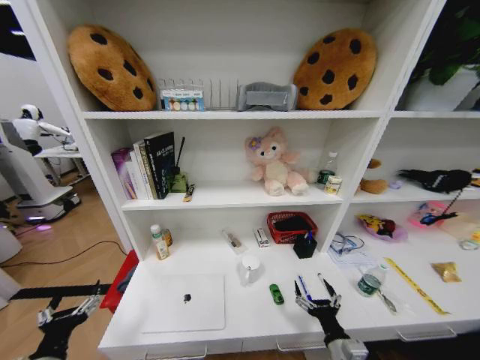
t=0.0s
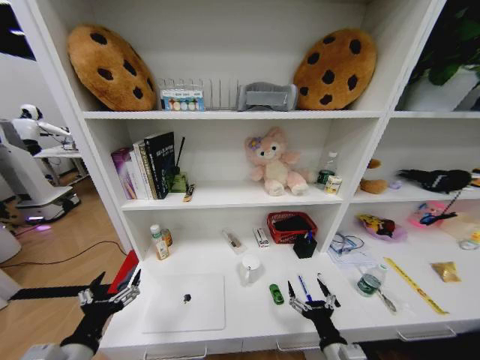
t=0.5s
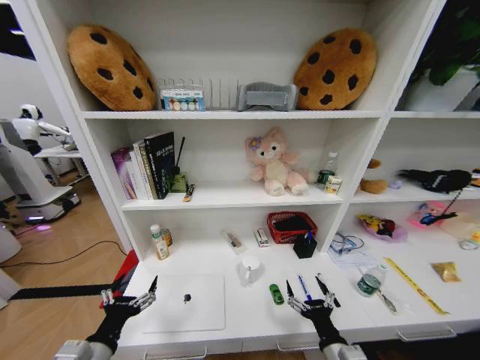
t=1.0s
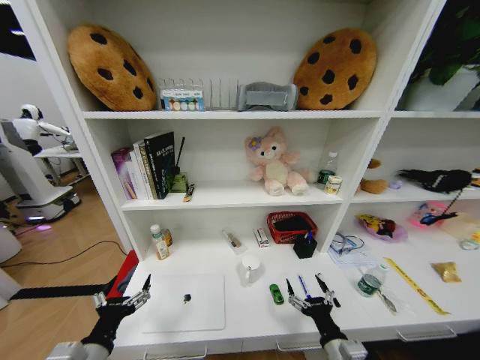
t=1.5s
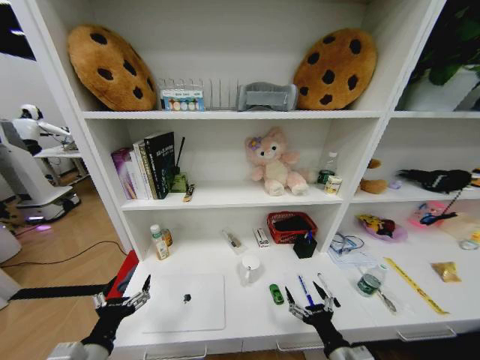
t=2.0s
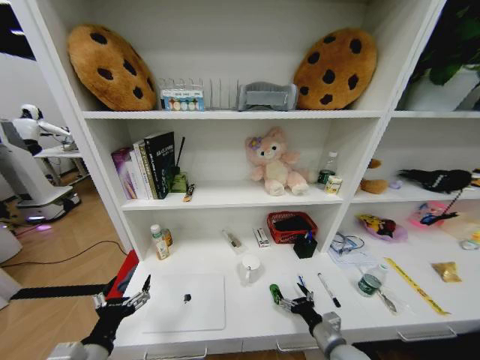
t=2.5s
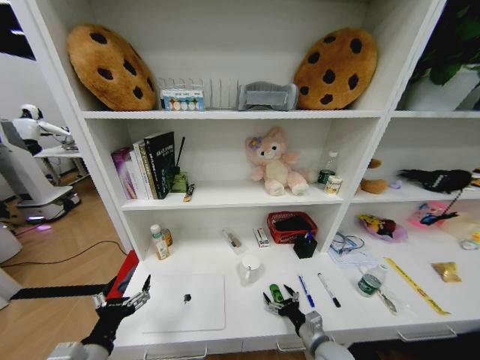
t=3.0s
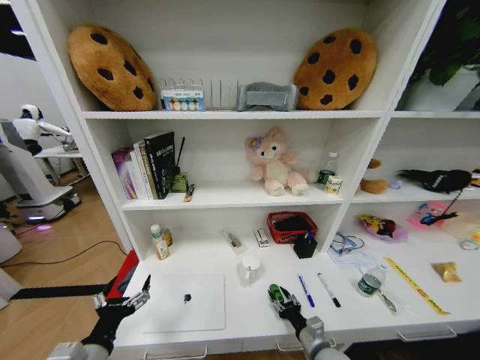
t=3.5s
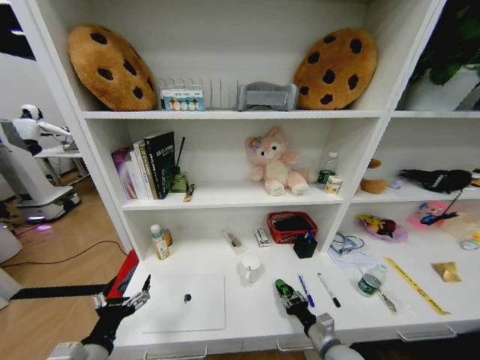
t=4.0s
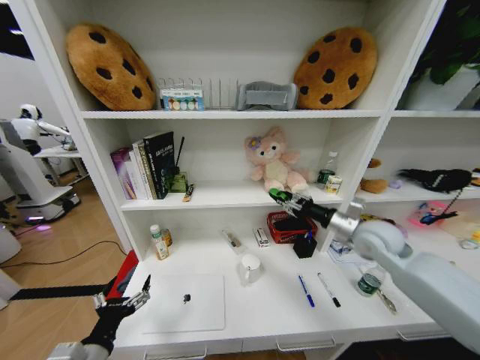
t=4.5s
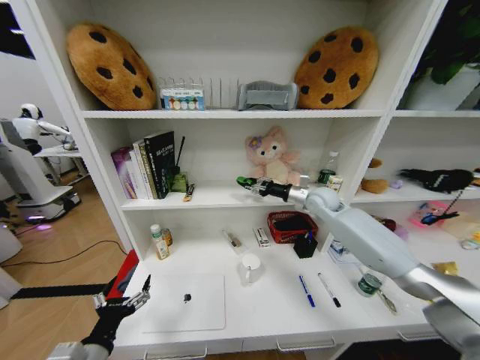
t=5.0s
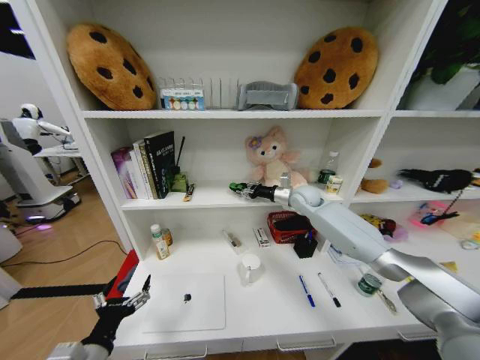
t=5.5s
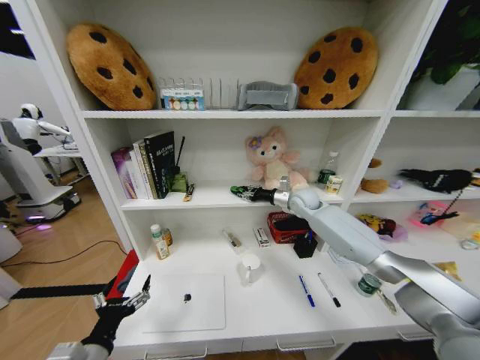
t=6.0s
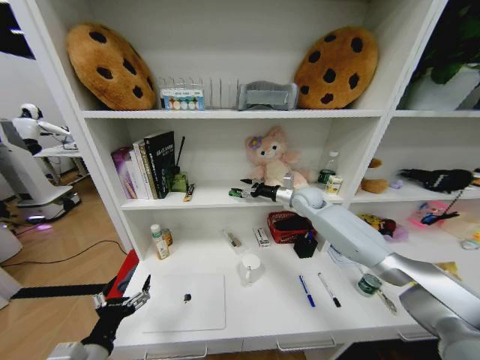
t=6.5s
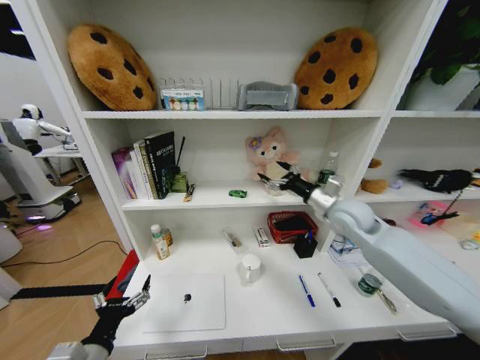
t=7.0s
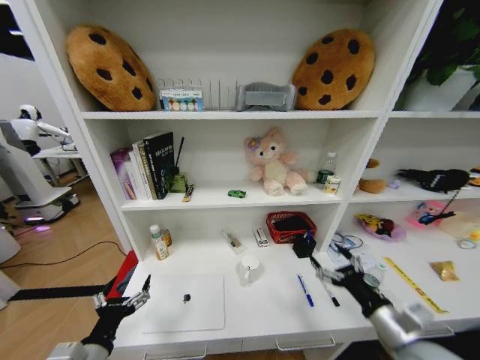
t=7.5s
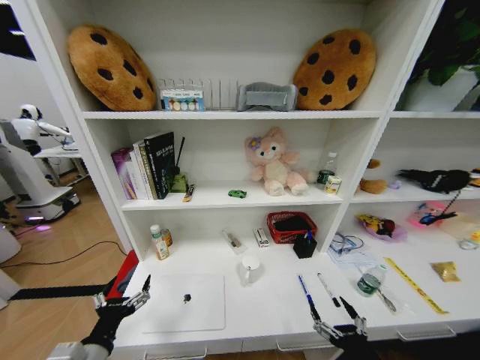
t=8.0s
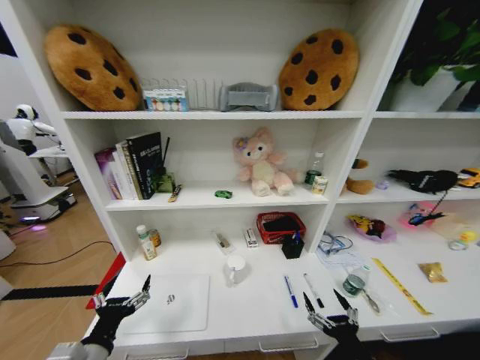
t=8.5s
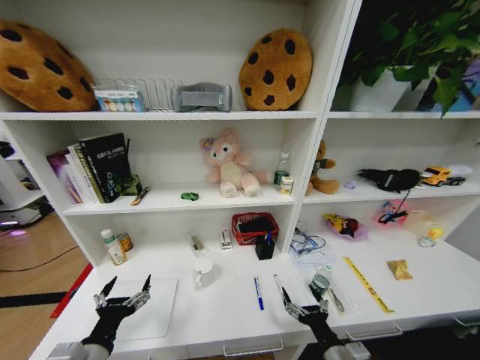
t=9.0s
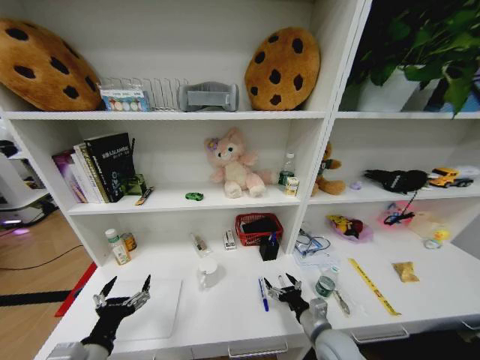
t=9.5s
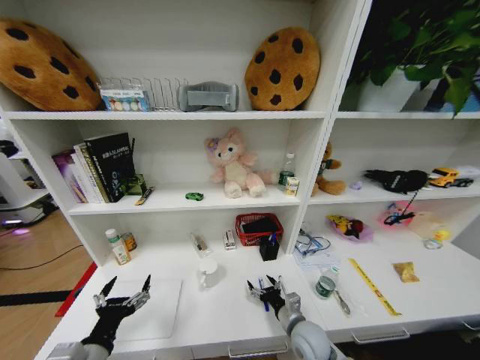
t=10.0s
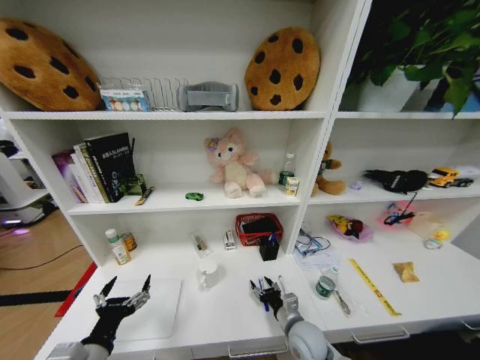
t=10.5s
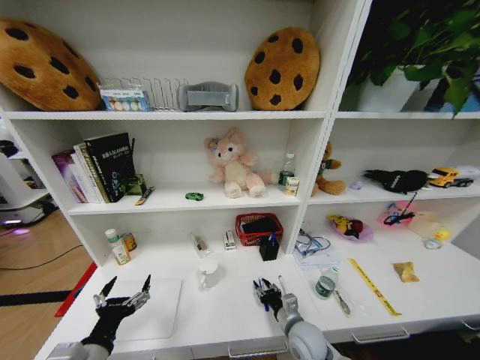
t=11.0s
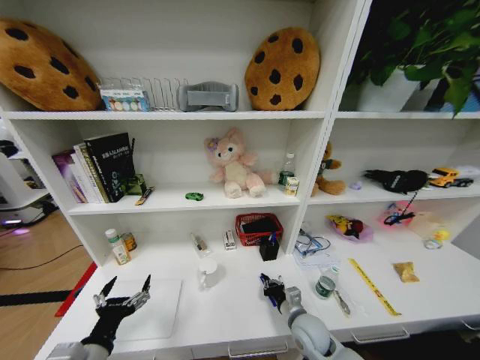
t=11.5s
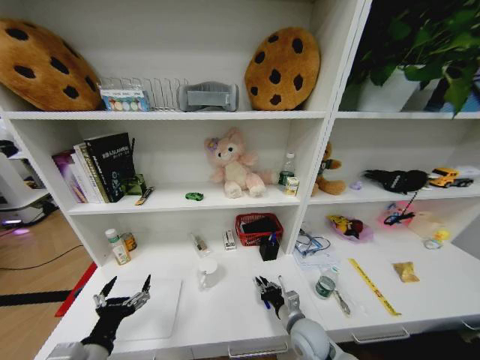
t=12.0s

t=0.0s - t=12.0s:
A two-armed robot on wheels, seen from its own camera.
Task of the whole recording: Organize the objects on the table.
t=0.0s - t=2.0s: The left gripper moves to the right, about 5 cm.
t=2.0s - t=4.0s: The right gripper shifts some 10 cm forward and downward, and closes.
t=4.0s - t=6.0s: The right gripper goes about 50 cm forward and upward.
t=6.0s - t=8.0s: The right gripper moves backward, about 50 cm, and opens up.
t=8.0s - t=10.0s: The right gripper goes about 20 cm forward and to the left.
t=10.0s - t=12.0s: The right gripper closes up.

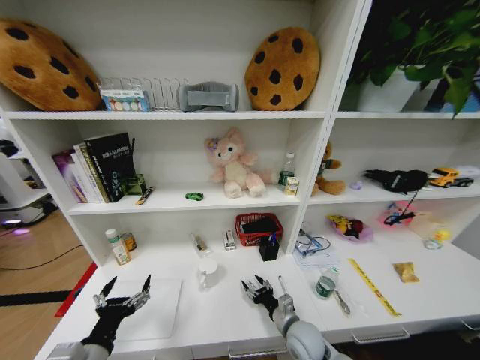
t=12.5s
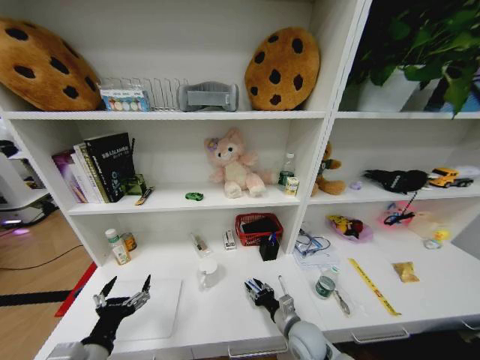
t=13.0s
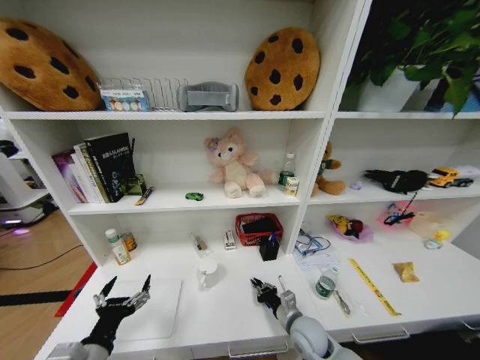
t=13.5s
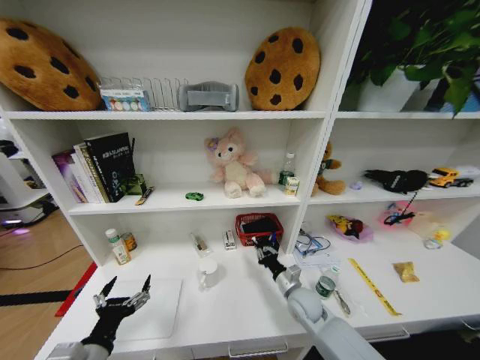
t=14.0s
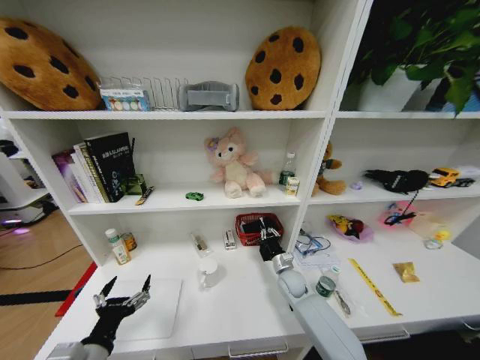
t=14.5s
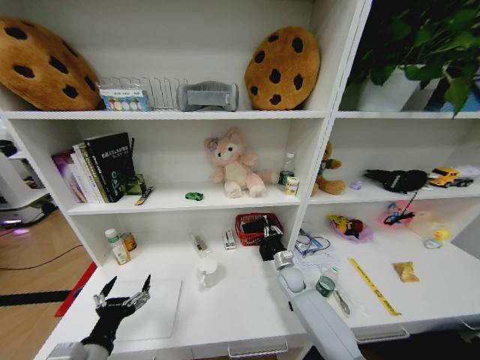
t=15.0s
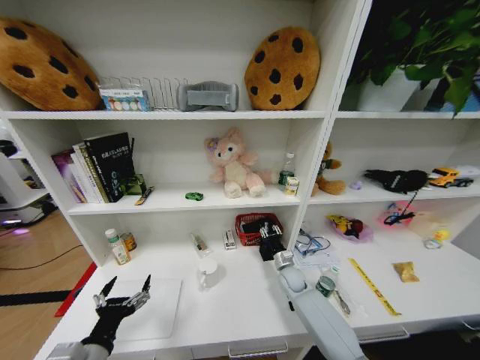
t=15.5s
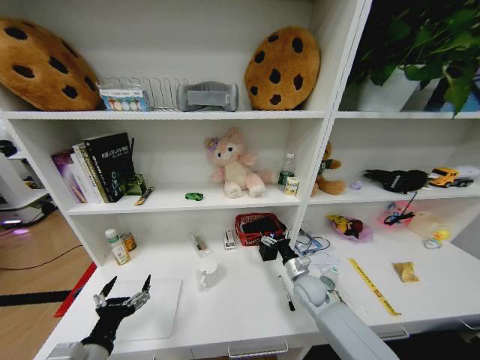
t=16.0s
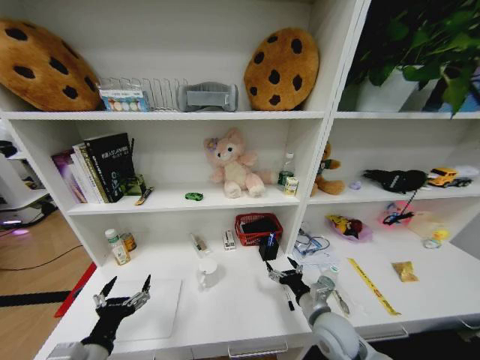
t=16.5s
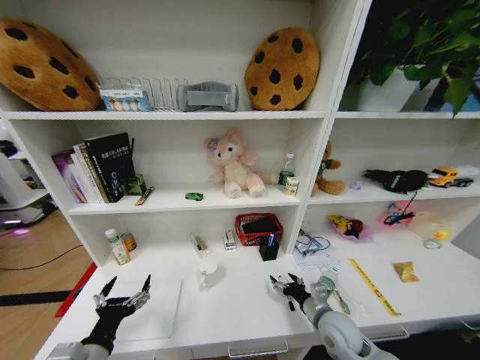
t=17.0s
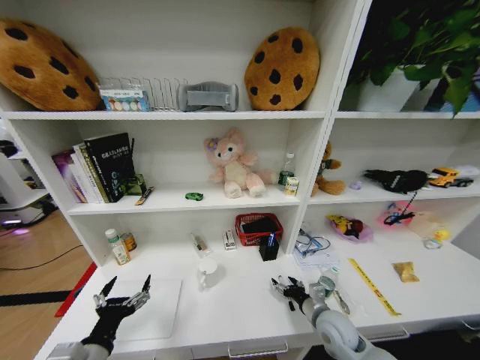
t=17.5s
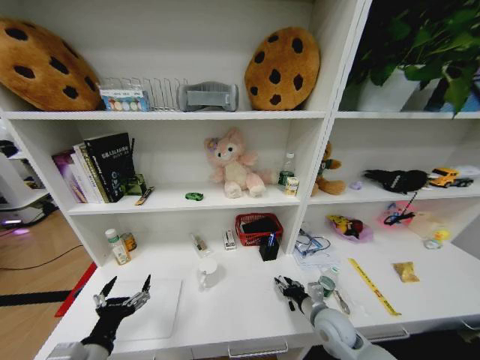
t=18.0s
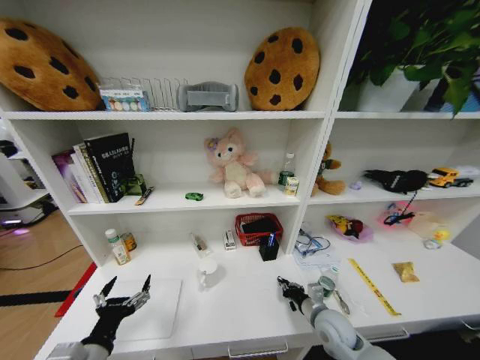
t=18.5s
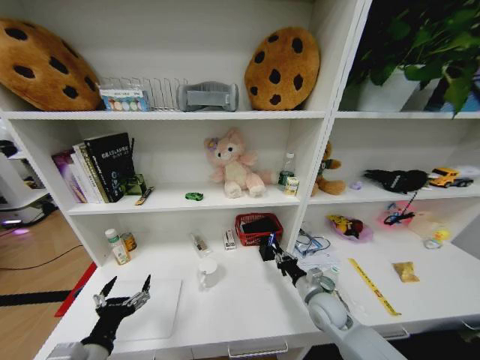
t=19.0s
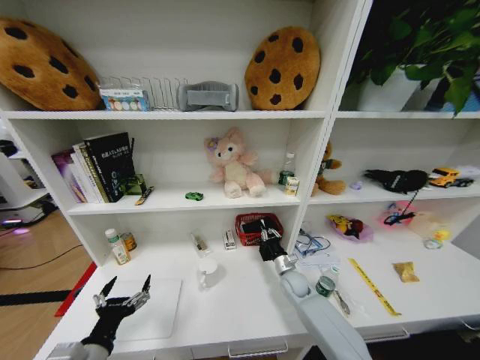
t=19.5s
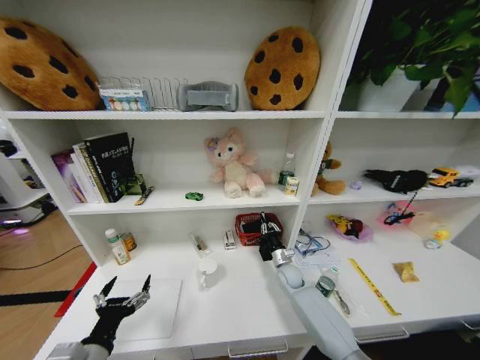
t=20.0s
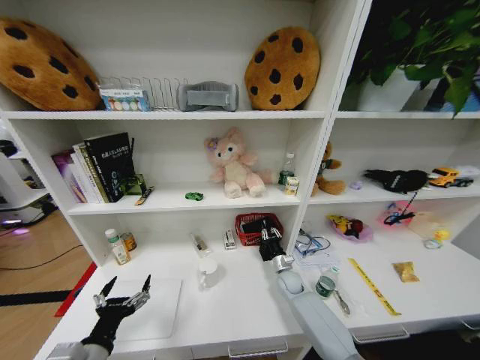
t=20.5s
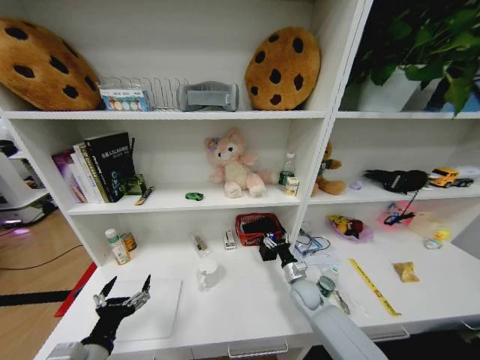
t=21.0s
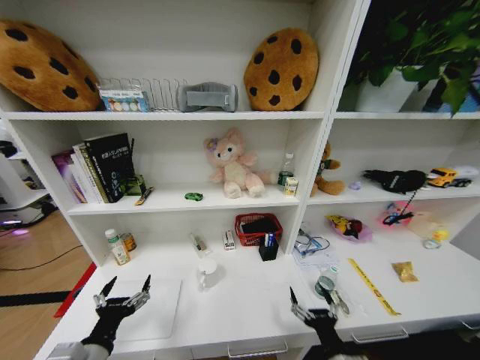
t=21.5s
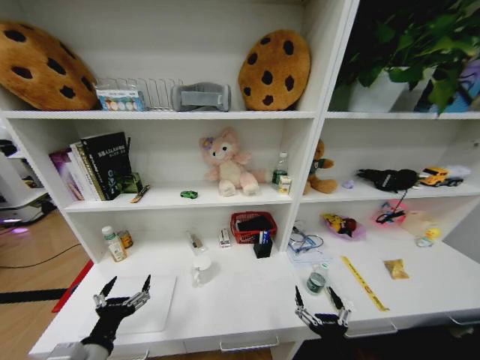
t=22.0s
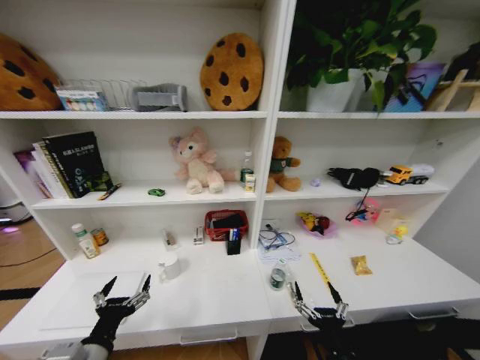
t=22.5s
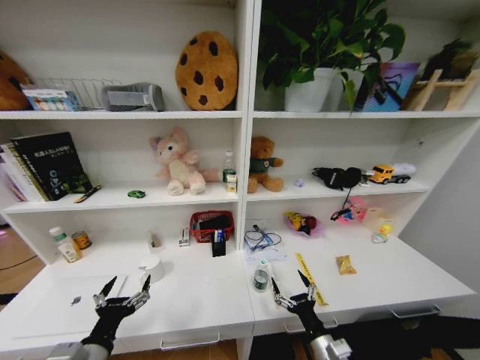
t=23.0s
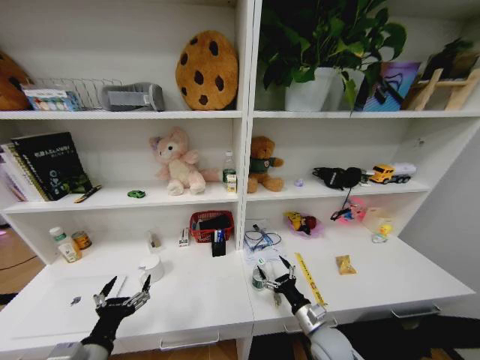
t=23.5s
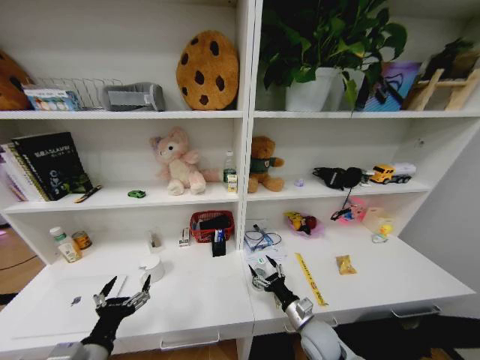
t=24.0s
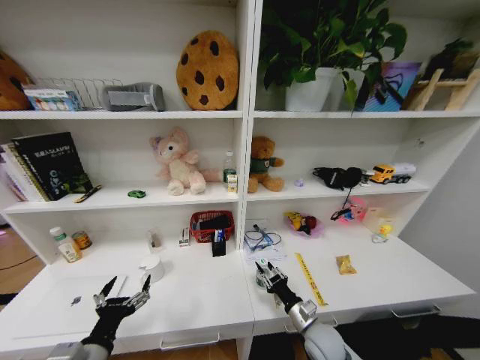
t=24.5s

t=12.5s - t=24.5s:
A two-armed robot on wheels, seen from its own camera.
Task of the whole recording: Organize the objects on the table.
t=12.5s - t=14.5s: The right gripper travels forward by about 15 cm, and closes up.
t=14.5s - t=16.5s: The right gripper heads backward and upward, covering about 20 cm, and opens.
t=16.5s - t=18.5s: The right gripper ends up some 5 cm from where it was, and closes up.
t=18.5s - t=20.5s: The right gripper goes about 20 cm forward and downward.
t=20.5s - t=22.5s: The right gripper shifts roughly 35 cm backward, and opens.
t=22.5s - t=24.5s: The right gripper is displaced forward and downward by about 15 cm, and closes.

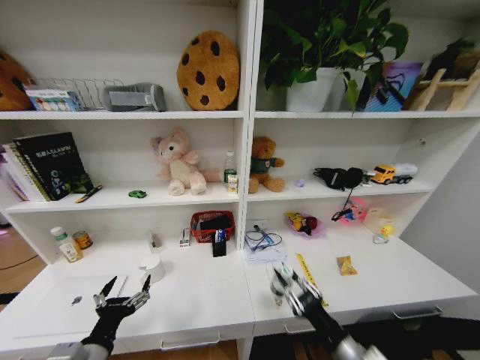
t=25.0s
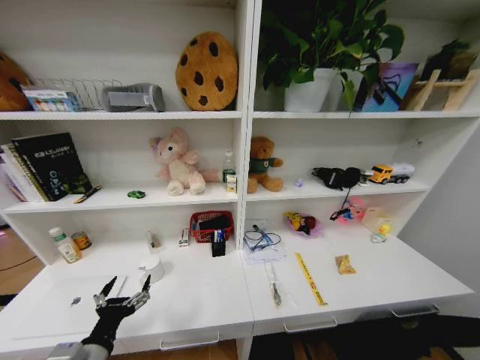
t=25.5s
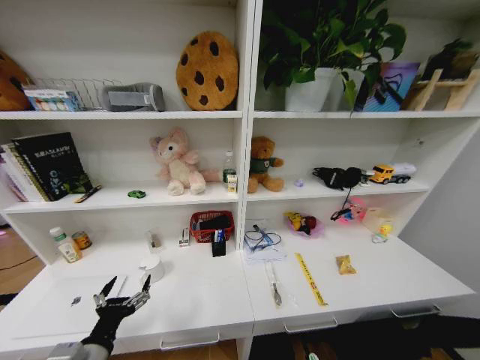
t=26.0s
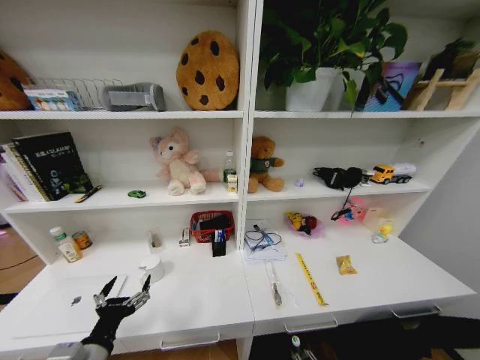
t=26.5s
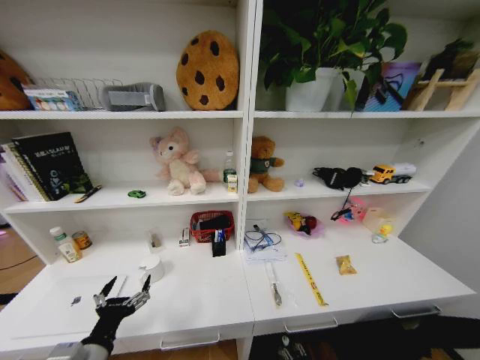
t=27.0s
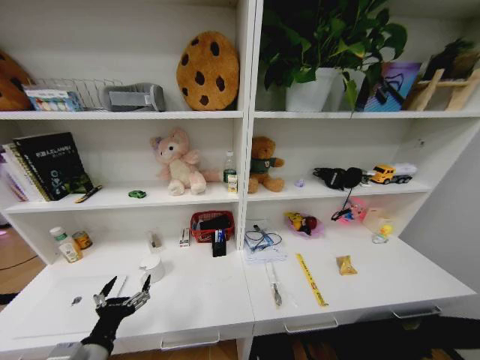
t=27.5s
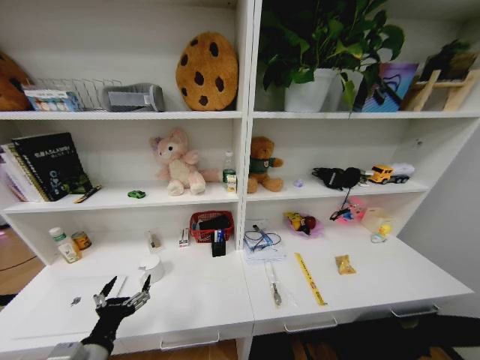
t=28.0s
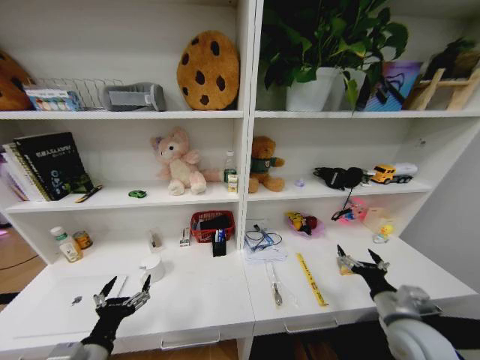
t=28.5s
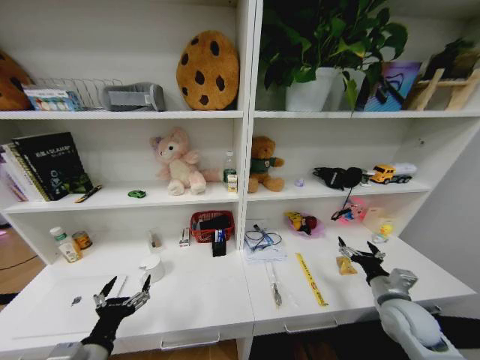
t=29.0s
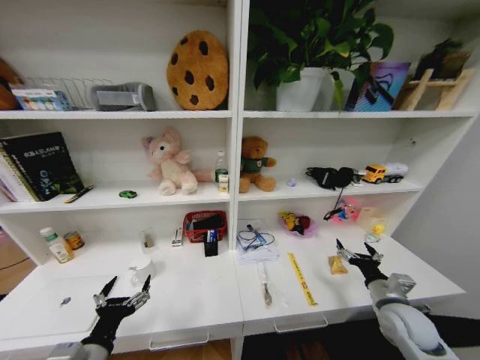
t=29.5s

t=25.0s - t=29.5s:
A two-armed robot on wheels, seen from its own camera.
Task of the whole recording: Organize the objects on the table.
t=25.0s - t=27.0s: The right gripper goes about 40 cm downward.
t=27.0s - t=29.5s: The right gripper heads upward and forward, covering approximately 40 cm, and opens.
